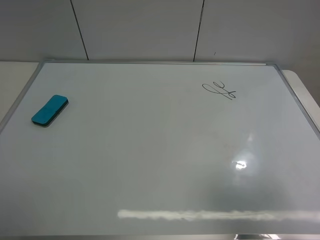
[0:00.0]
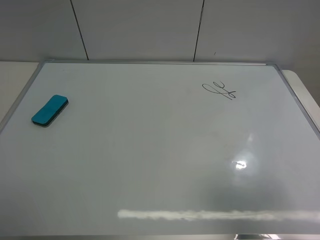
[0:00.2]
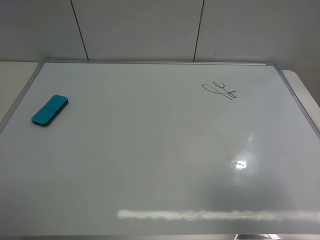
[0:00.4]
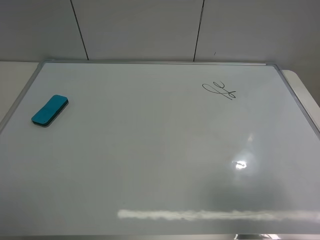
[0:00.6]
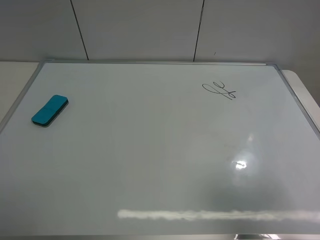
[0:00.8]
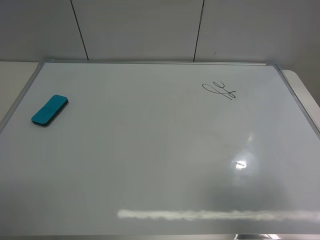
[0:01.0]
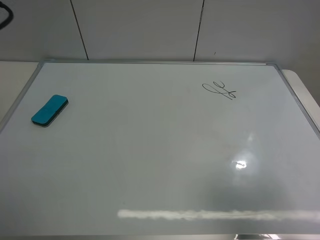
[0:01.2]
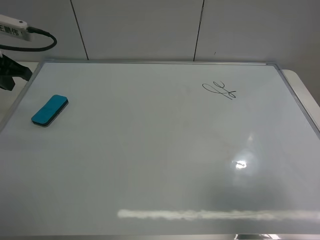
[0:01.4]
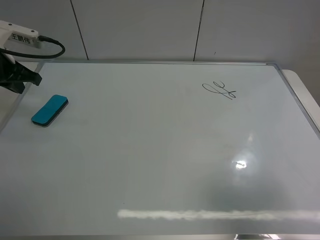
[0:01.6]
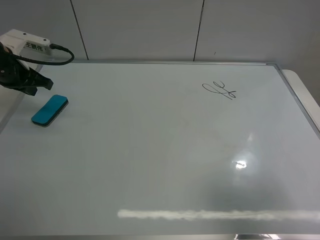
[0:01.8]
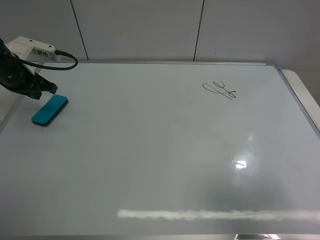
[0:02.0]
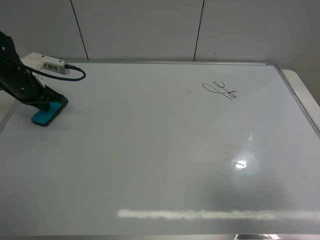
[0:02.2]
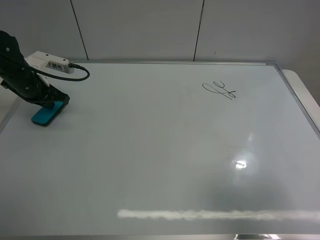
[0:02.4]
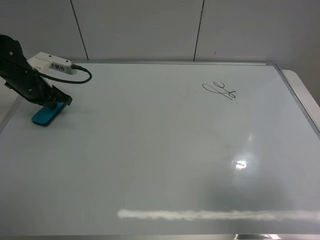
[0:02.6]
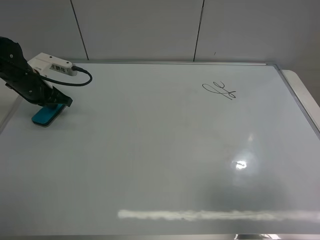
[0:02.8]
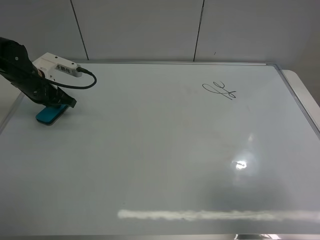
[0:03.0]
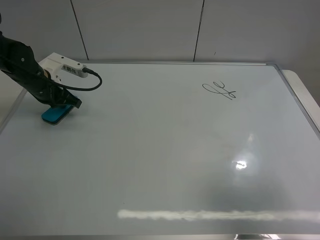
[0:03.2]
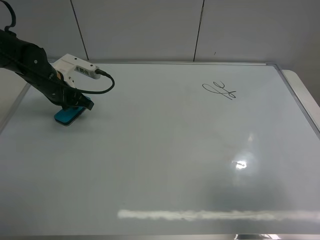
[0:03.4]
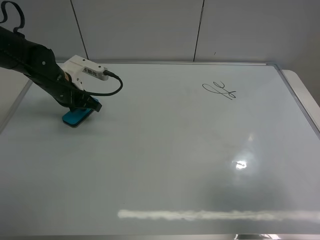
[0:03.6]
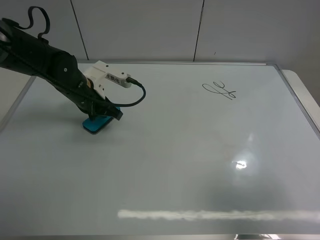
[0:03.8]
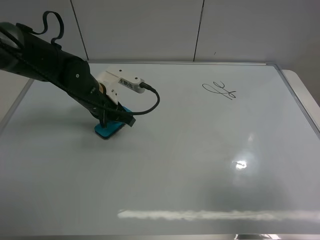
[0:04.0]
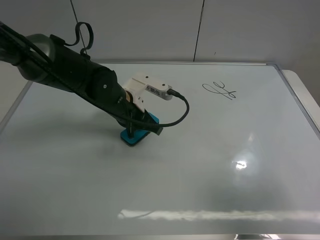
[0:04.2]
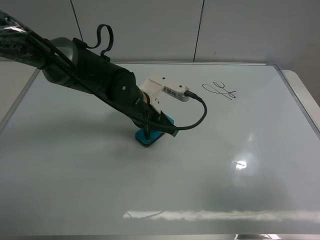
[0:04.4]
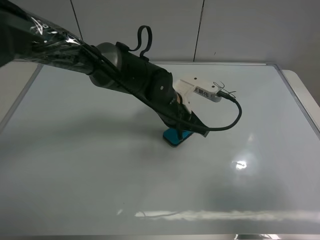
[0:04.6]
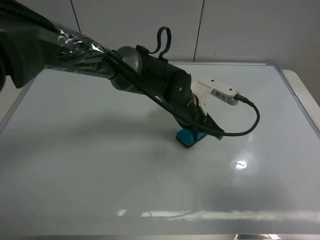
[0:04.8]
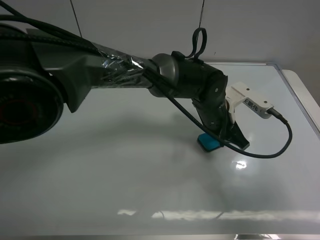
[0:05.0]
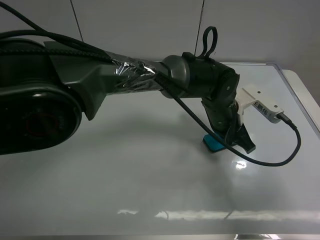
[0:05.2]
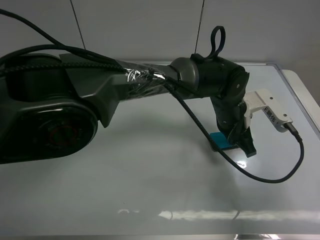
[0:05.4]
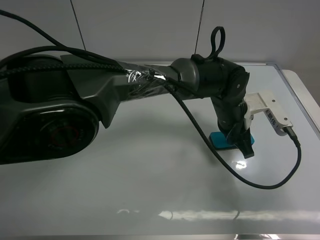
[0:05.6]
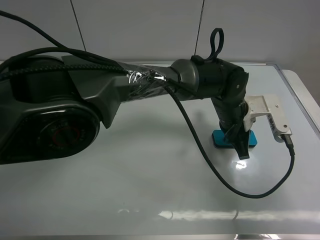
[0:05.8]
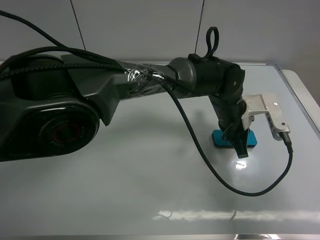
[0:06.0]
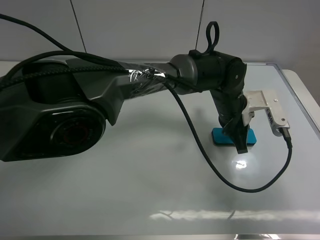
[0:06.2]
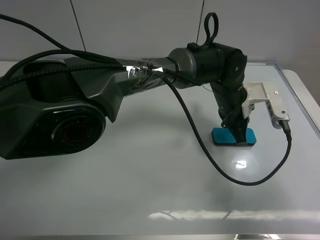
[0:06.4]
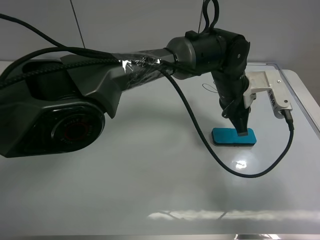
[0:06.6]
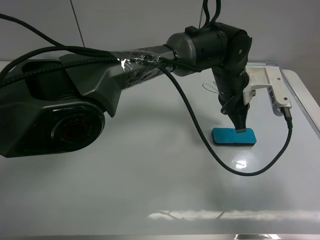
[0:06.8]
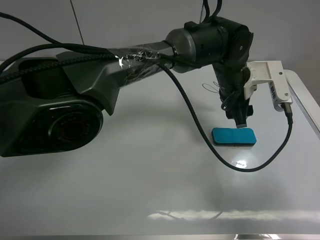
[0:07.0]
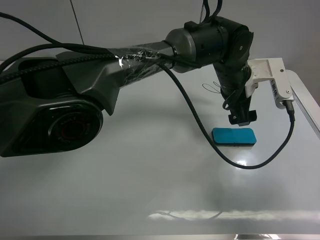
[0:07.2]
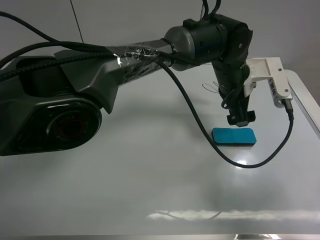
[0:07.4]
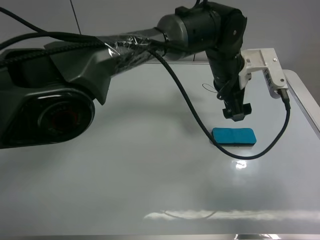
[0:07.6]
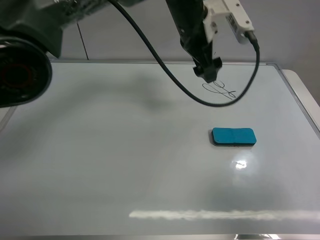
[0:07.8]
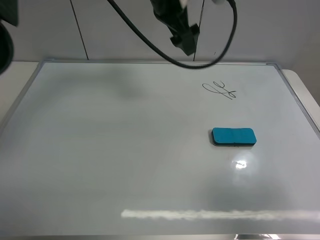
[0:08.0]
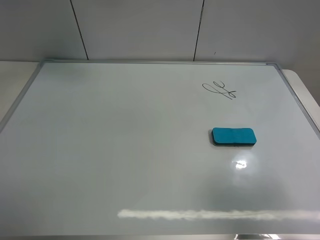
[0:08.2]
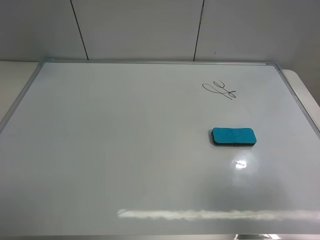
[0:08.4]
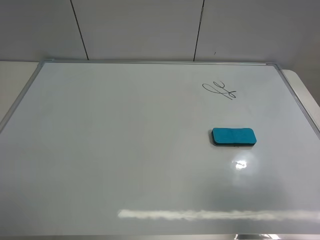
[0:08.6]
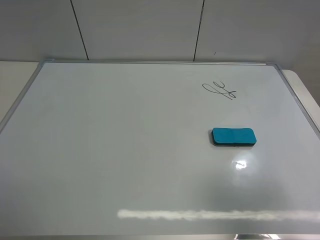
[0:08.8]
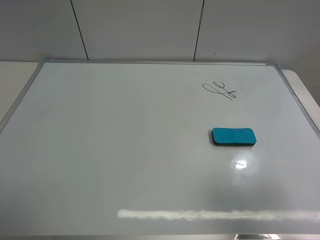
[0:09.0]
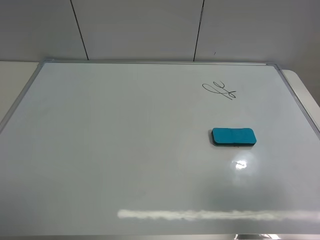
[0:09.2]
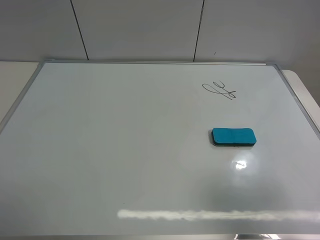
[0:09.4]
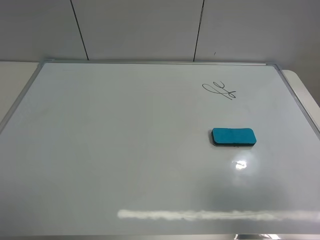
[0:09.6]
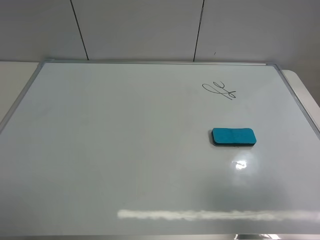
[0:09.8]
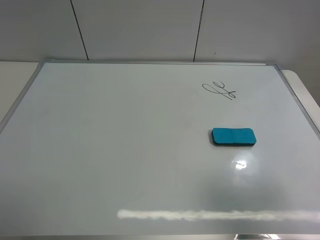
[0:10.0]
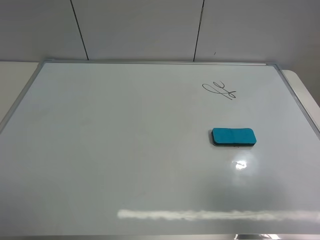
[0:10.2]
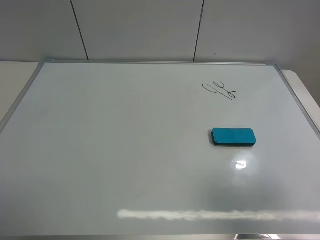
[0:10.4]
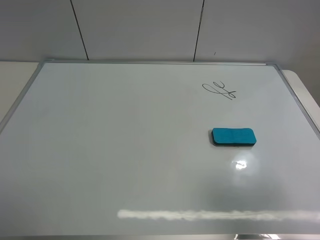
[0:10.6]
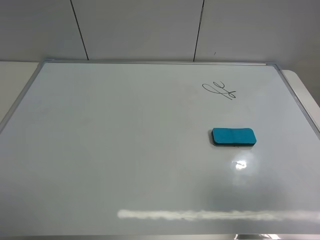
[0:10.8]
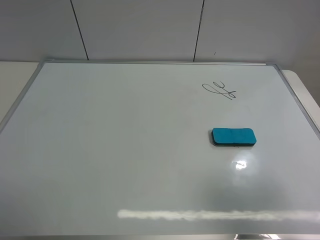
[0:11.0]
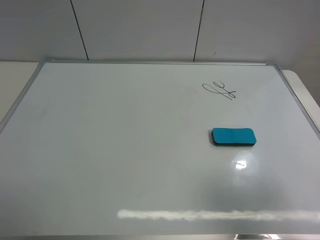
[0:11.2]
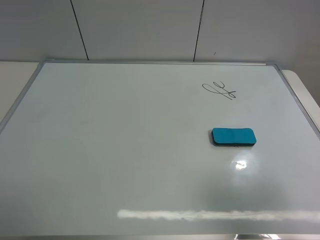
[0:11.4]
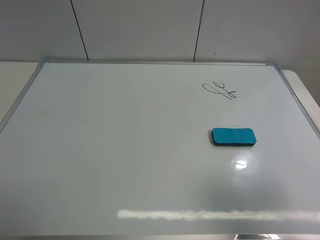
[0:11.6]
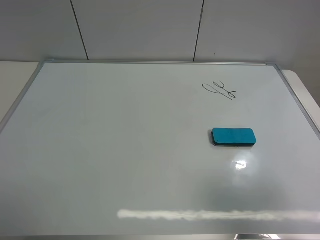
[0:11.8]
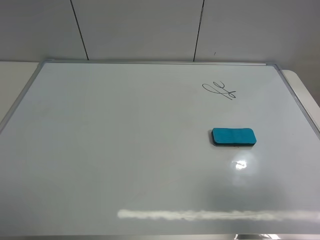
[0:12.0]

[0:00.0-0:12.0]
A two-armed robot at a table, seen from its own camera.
Task of the whole recording: use the left gripper to place the eraser in the right, use the right gripper to pick up the eraser, wipe the notes on the whiteboard clean, and then put it down.
Step, 0.0 to 6.2 s: Move the board eraser to the right of the whiteboard with left gripper.
0.0 to 1.6 s: The left gripper is displaced forward by approximately 35 cm, and closes its fingers.
1.6 to 3.0 s: The left gripper goes about 10 cm downward.
3.0 to 4.4 s: The left gripper is displaced to the right by about 25 cm.
4.4 to 6.0 s: The left gripper shifts some 20 cm to the right.
6.0 to 7.6 s: The left gripper goes about 10 cm upward, and opens up.
7.6 to 9.0 s: The left gripper heads to the left, upward and backward, covering about 60 cm.
10.4 to 12.0 s: Both grippers stay about where they are.

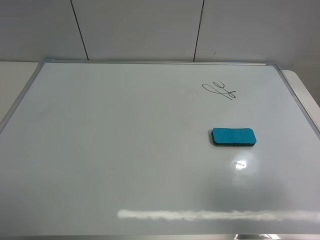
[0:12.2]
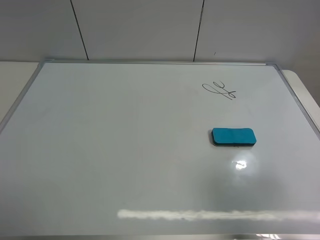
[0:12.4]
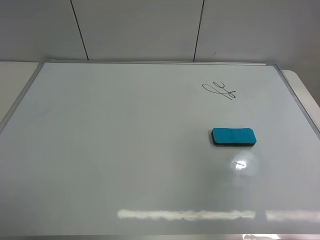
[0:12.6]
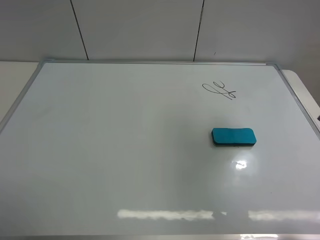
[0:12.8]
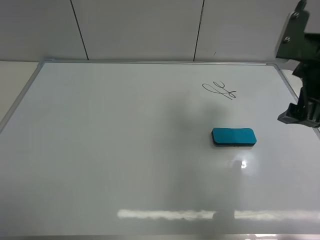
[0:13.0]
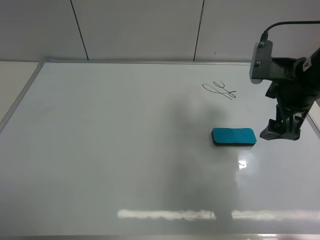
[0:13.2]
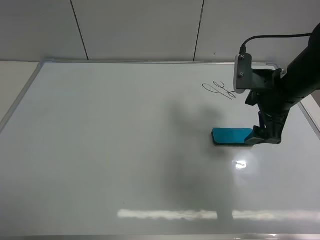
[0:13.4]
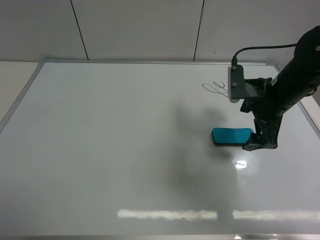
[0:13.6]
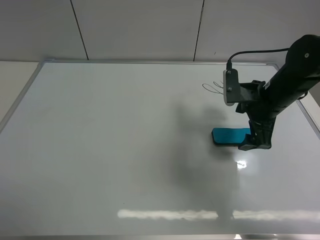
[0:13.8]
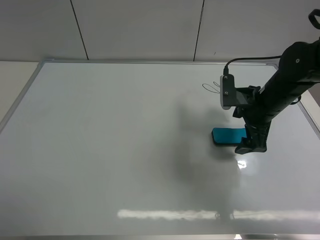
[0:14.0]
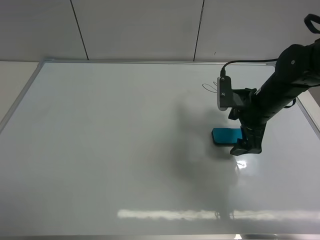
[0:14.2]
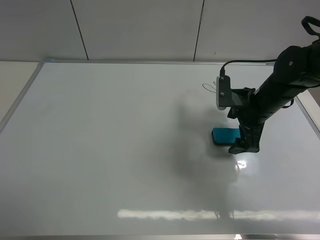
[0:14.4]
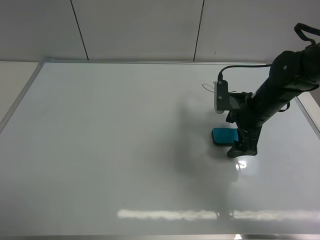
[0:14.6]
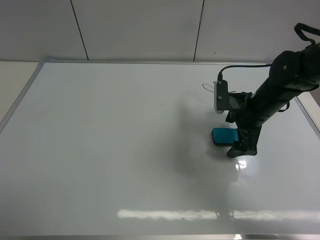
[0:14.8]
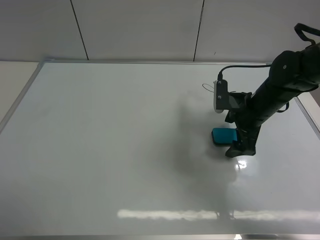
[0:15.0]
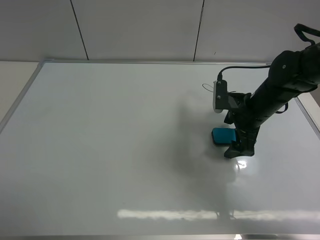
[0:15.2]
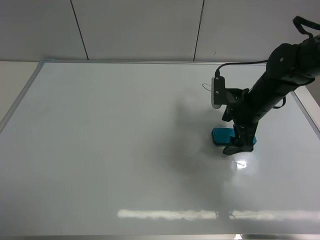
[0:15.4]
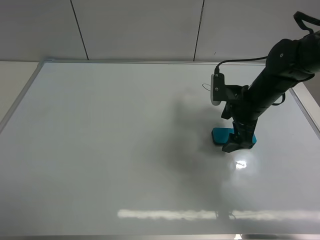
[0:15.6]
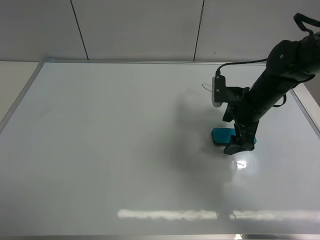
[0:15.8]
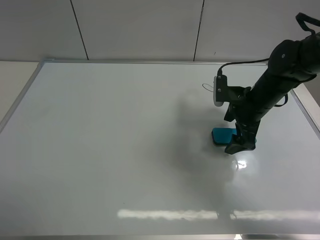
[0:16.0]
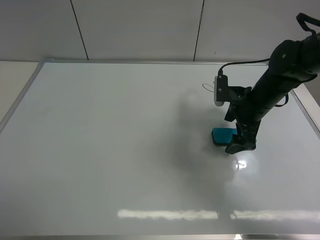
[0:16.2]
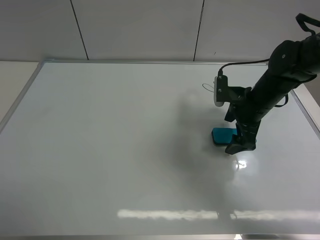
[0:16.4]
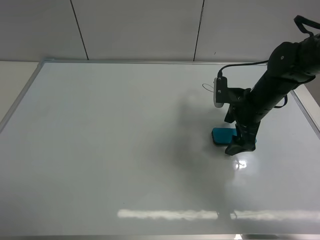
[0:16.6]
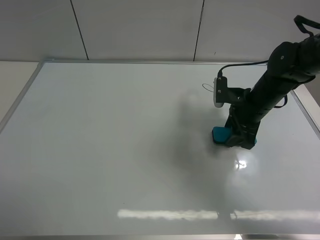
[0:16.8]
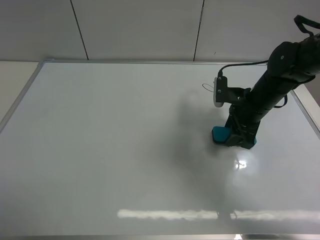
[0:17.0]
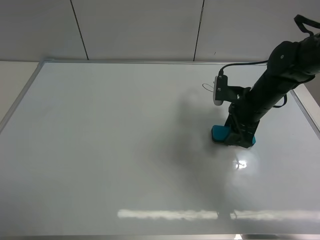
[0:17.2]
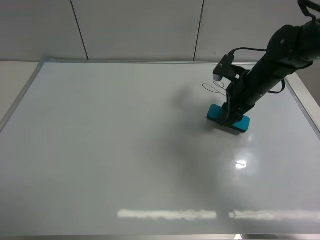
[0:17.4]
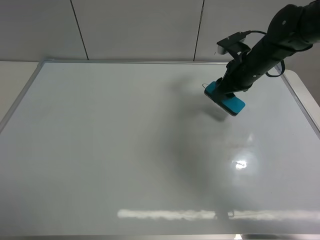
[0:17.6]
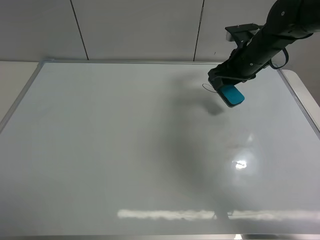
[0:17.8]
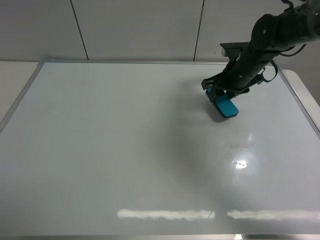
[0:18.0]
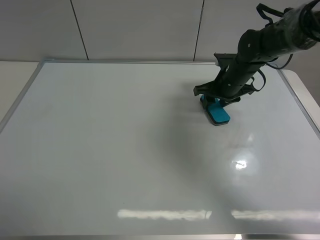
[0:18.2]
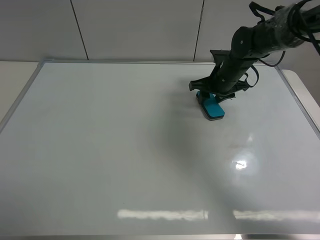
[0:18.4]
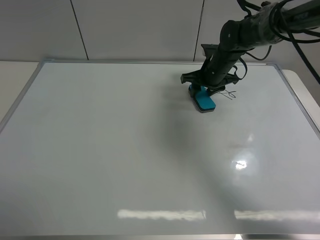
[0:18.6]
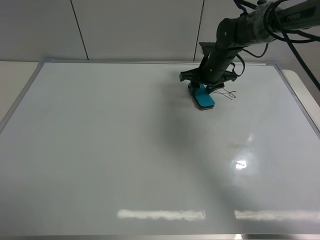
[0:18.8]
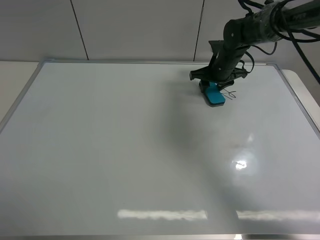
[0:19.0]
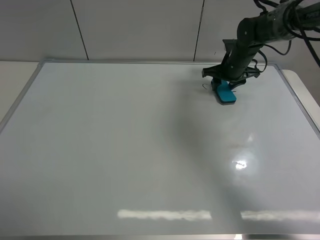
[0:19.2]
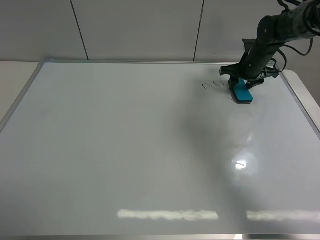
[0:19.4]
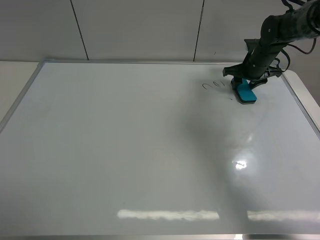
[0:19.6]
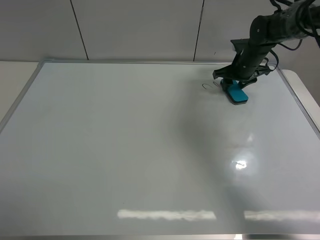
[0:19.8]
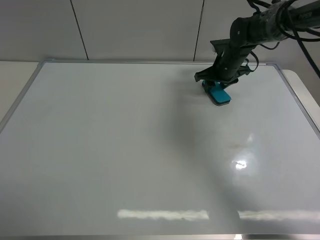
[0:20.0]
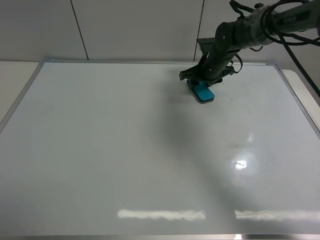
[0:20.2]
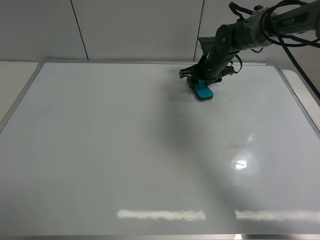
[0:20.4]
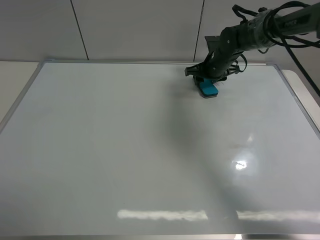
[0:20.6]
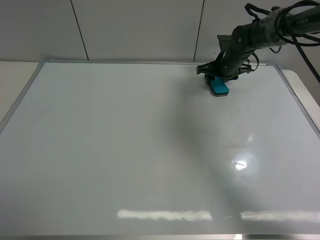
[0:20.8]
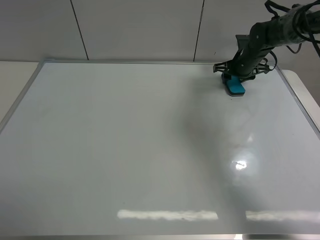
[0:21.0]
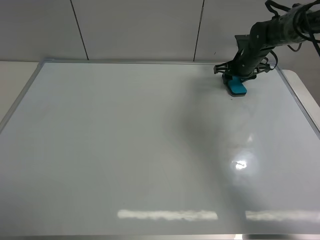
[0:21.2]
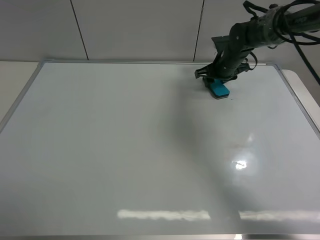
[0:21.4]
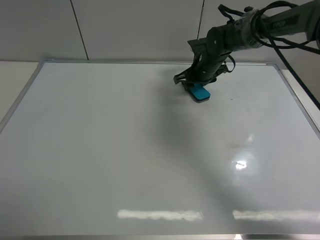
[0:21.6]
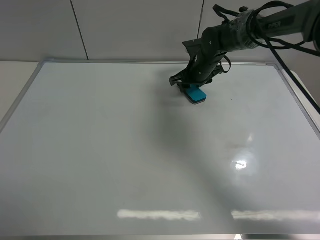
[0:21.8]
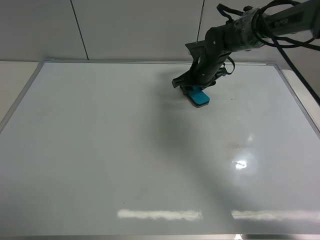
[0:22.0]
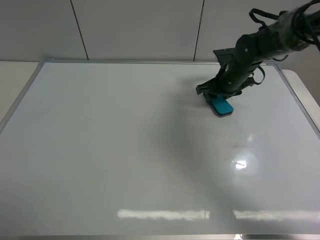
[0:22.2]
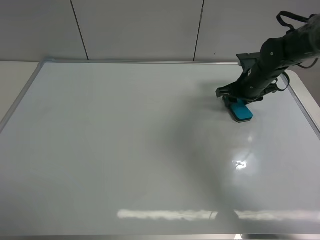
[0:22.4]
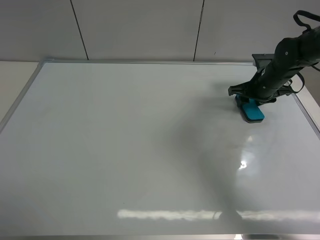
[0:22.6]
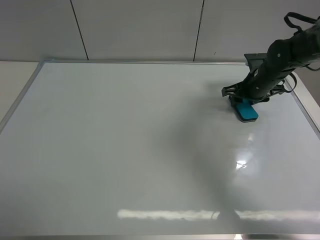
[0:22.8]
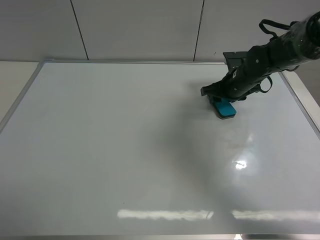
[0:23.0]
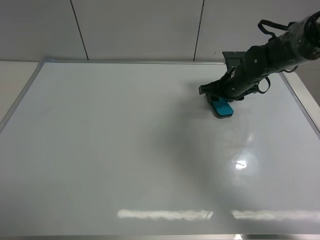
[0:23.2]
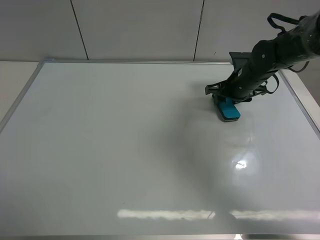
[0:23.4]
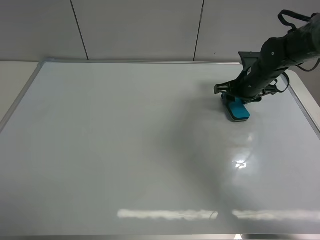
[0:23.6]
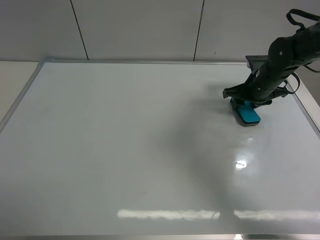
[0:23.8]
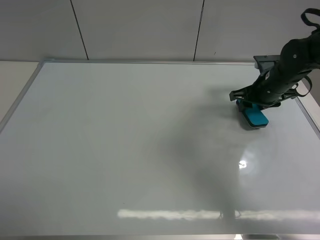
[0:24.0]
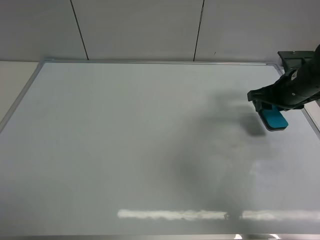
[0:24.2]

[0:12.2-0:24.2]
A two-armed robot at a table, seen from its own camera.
Task of the whole recording: use the left gripper to place the eraser in the right, use the right gripper to pick up the eraser, wipe the notes on the whiteboard clean, and then put it down.
Step, 12.2 to 17.2 s: Pick up the board eraser with right gripper.
Step, 17.4 to 23.6 s: Wipe off the writing on the board with right gripper.
12.2 to 13.8 s: The right gripper travels forward and downward by approximately 30 cm.
13.8 to 16.6 s: The grippers stay close to where they were, moving slightly.
16.6 to 18.2 s: The right gripper is displaced forward by roughly 10 cm, and closes its fingers.
18.2 to 19.8 s: The right gripper shifts roughly 10 cm forward and to the right.
19.8 to 21.2 s: The right gripper reaches about 10 cm to the left, then returns.
21.2 to 22.6 s: The right gripper is displaced backward by about 10 cm, and goes to the left and returns, about 15 cm each way.
22.6 to 24.2 s: The right gripper is displaced backward by some 10 cm, and reaches roughly 10 cm to the left, then returns.
